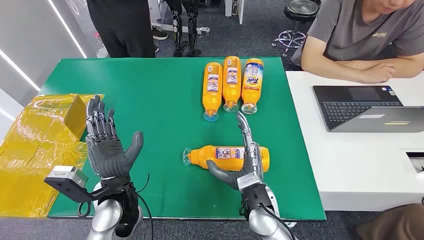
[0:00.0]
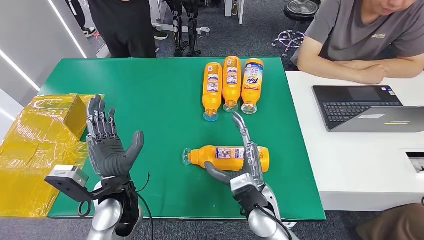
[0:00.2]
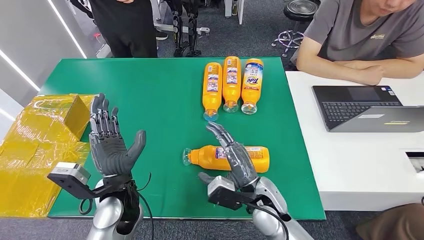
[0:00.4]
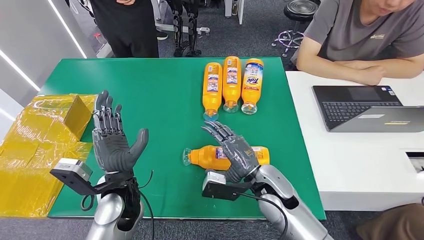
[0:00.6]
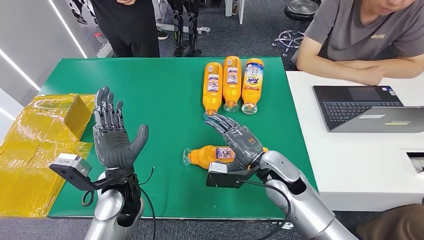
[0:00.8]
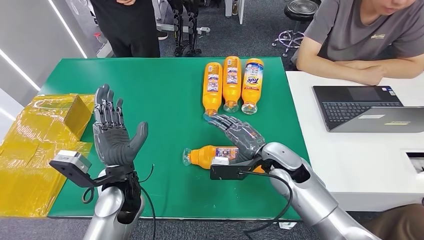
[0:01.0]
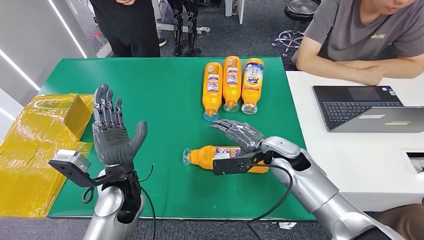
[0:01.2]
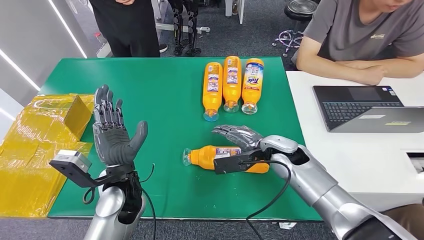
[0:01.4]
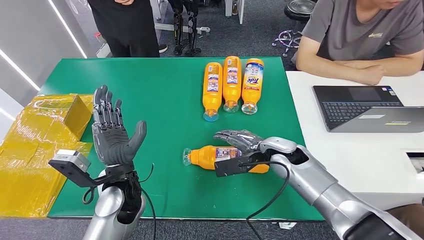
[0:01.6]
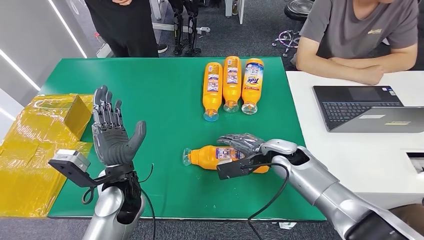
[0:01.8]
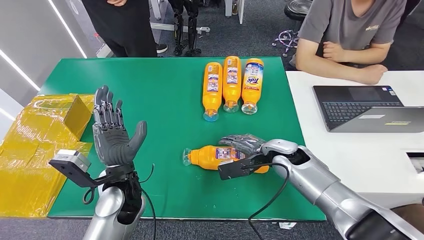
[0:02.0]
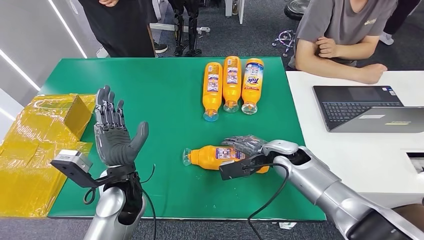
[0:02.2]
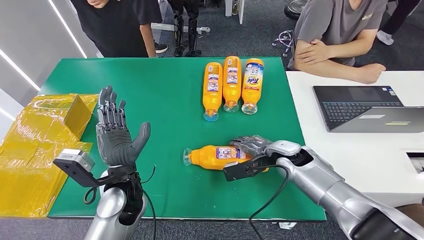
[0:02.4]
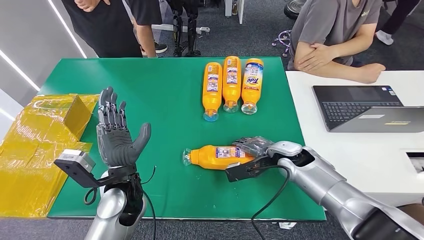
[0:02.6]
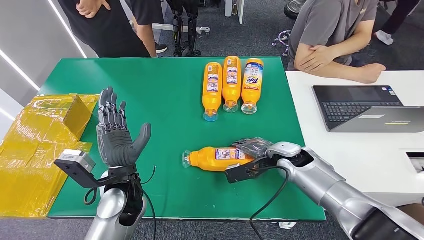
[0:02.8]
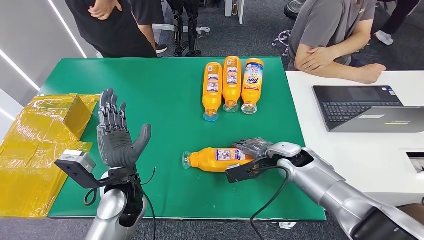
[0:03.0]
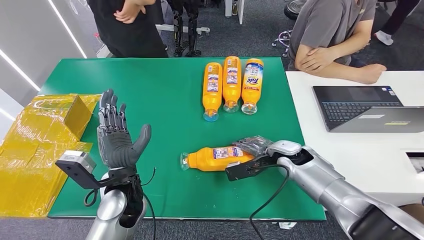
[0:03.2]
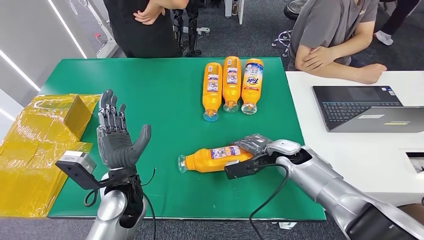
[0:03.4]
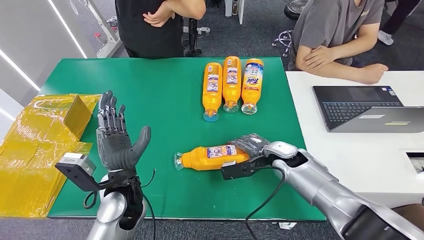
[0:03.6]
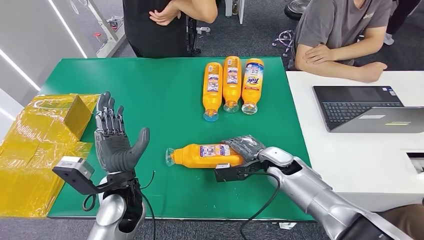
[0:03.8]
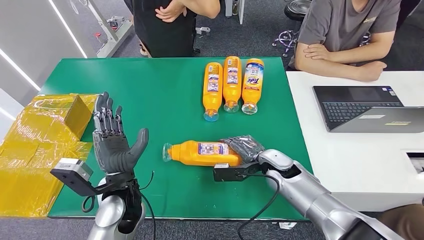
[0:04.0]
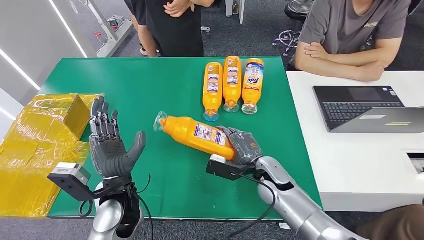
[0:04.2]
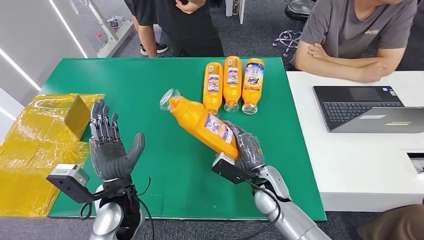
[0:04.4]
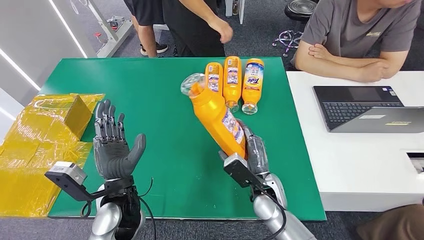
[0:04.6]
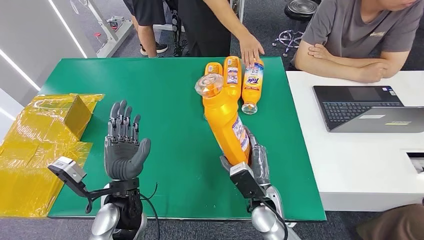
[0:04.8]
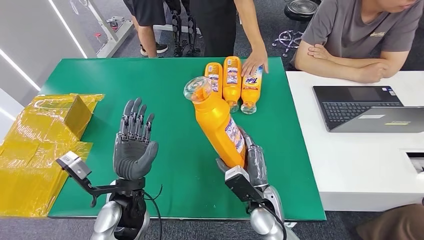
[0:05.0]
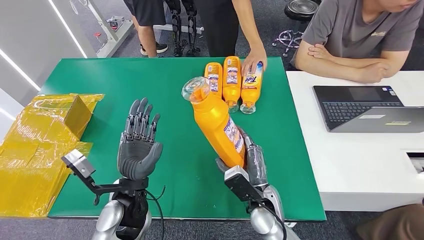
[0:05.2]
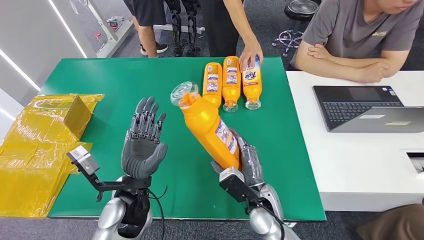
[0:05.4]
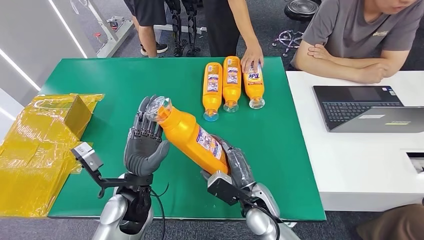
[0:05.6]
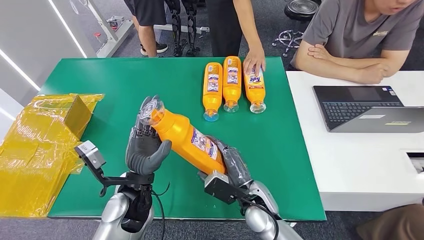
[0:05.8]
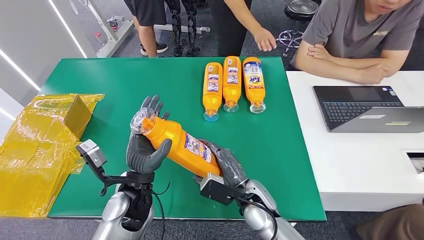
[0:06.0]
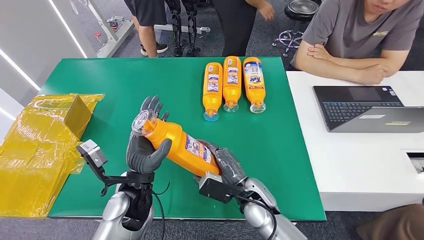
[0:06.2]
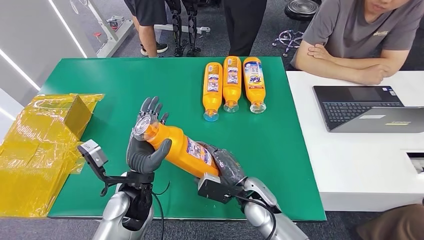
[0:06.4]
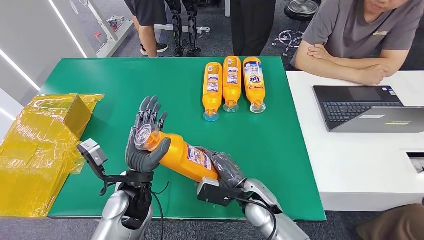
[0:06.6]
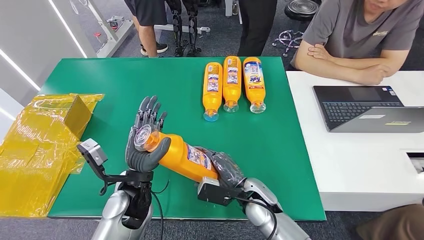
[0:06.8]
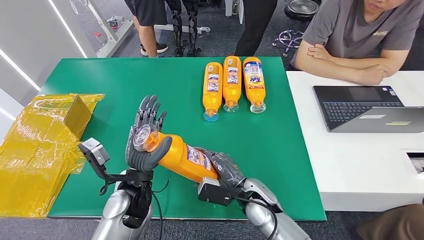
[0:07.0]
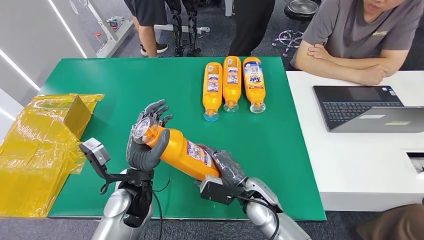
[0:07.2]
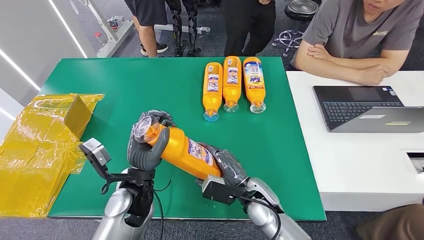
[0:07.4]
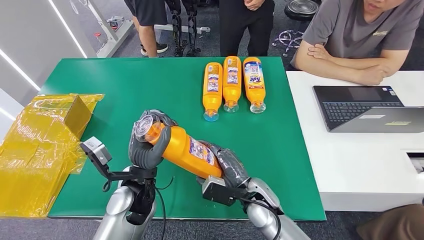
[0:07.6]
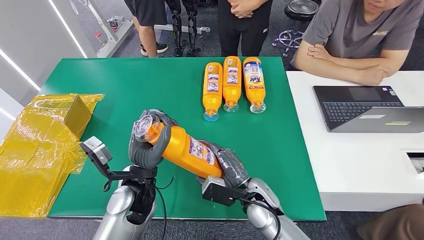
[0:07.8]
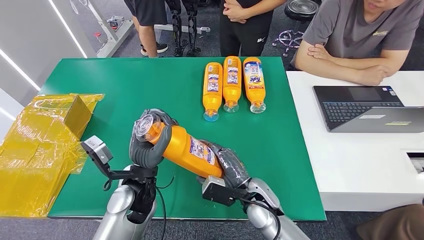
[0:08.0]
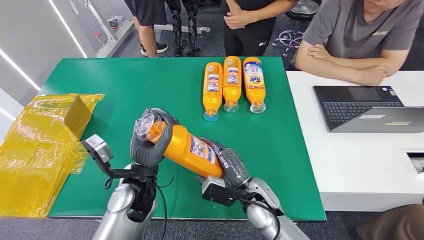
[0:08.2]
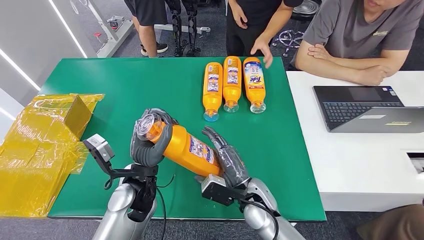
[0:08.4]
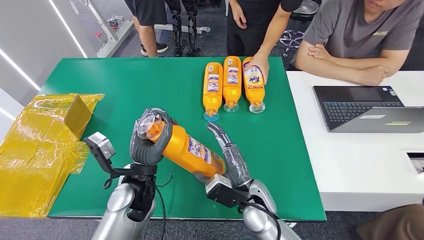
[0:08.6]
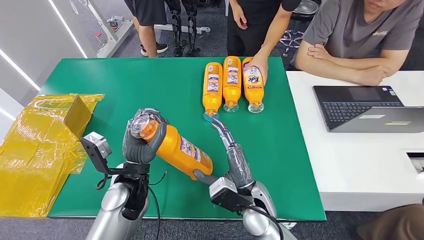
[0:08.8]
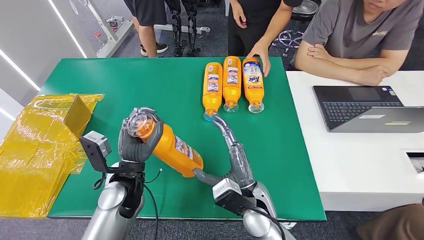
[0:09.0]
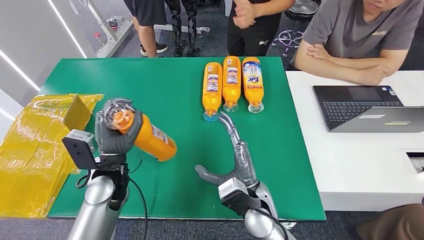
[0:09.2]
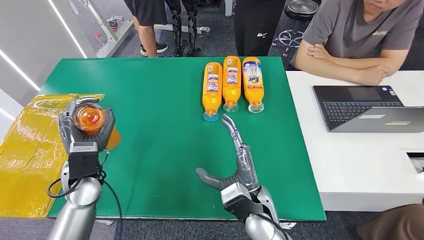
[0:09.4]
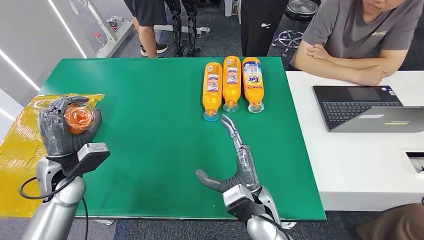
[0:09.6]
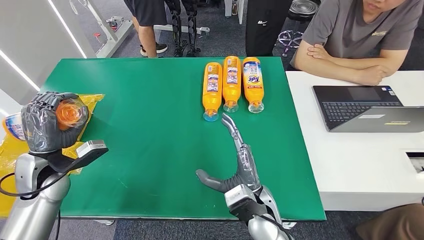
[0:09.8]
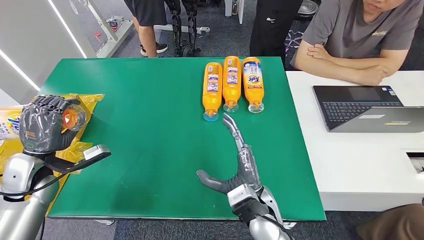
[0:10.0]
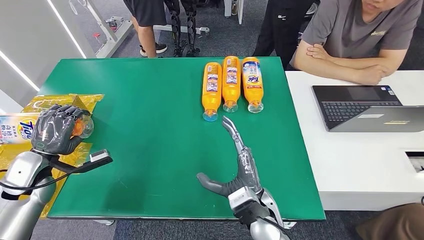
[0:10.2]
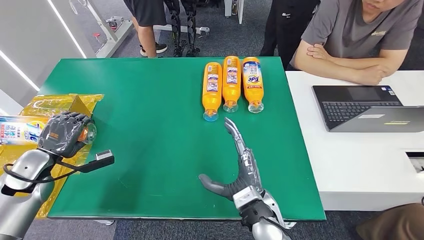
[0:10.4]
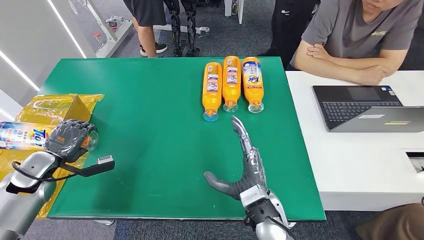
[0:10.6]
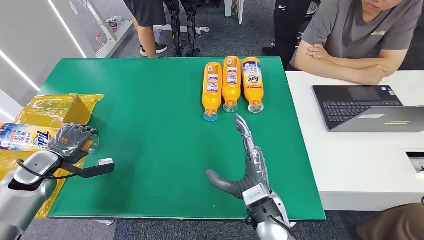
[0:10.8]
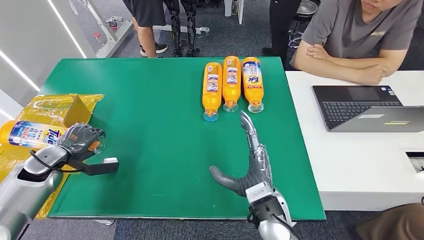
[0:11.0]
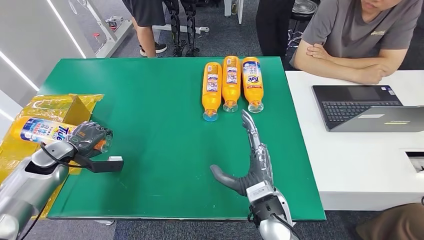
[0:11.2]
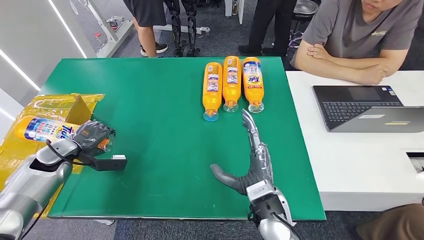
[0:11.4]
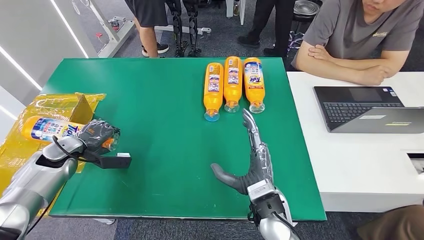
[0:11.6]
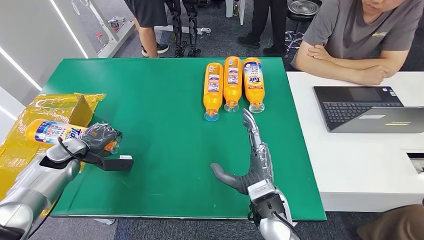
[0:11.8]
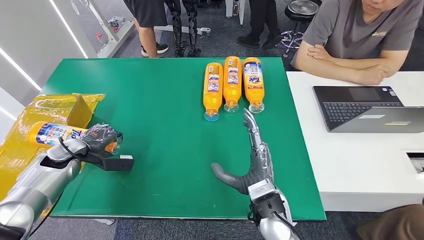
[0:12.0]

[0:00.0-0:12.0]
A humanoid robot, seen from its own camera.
Step, 0:00.0 to 0:06.4: Pick up the bottle from the table.
0:01.6 to 0:03.0: The hands make only small movements.
0:06.0 to 0:07.6: The hands move only a little.
0:10.4 to 0:12.0: The left hand is displaced forward by roughly 5 cm.

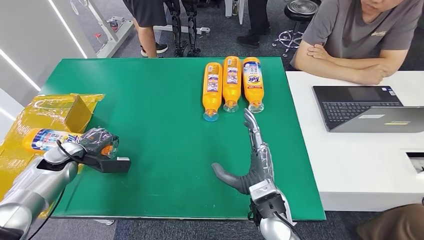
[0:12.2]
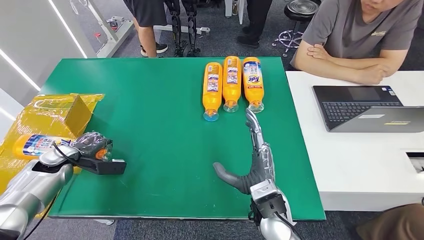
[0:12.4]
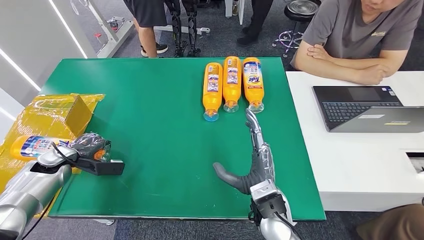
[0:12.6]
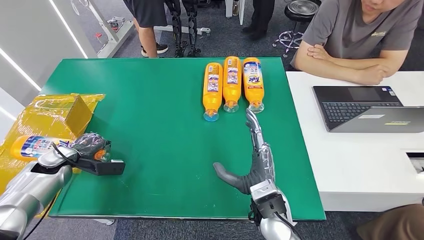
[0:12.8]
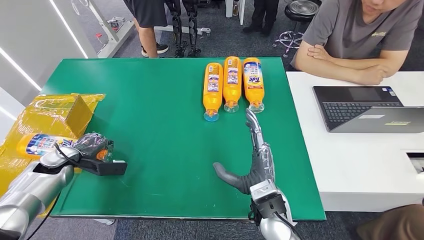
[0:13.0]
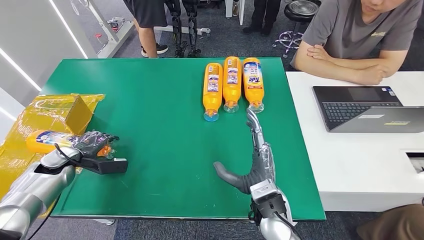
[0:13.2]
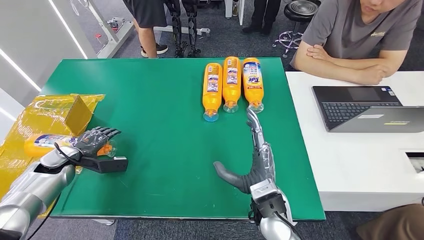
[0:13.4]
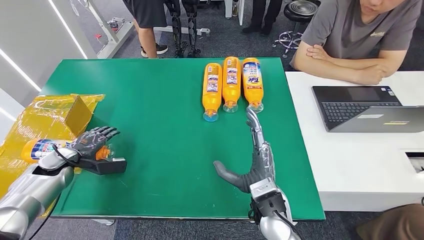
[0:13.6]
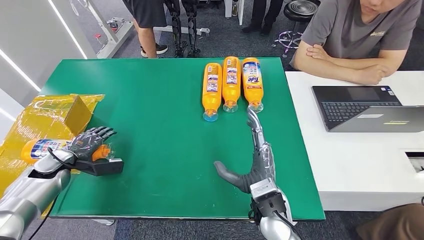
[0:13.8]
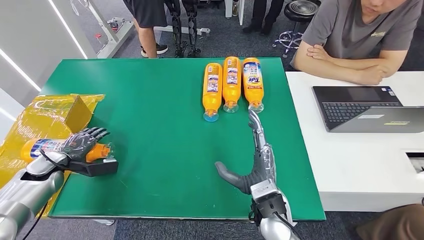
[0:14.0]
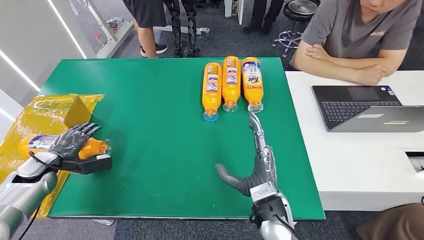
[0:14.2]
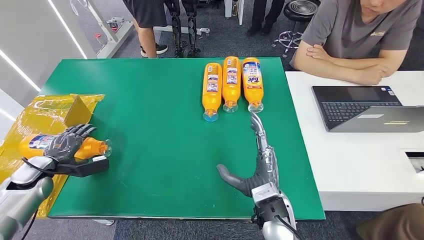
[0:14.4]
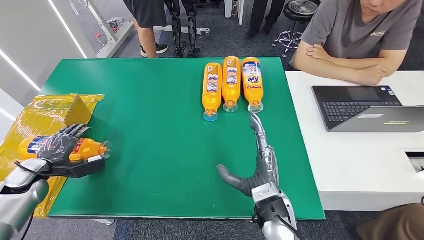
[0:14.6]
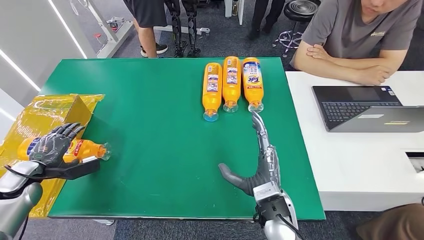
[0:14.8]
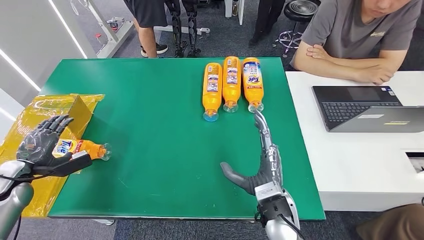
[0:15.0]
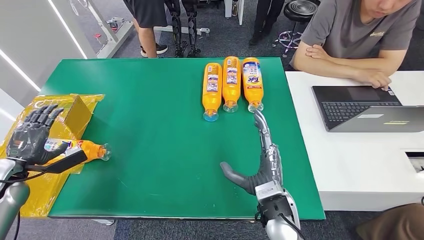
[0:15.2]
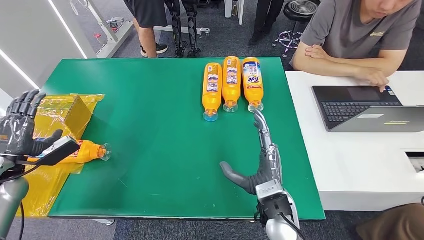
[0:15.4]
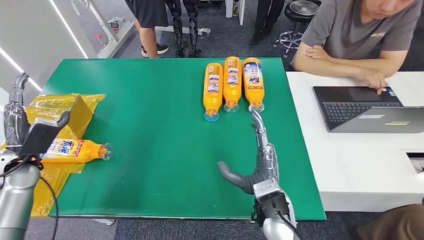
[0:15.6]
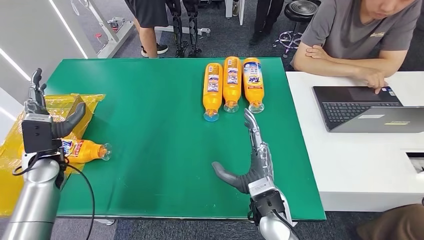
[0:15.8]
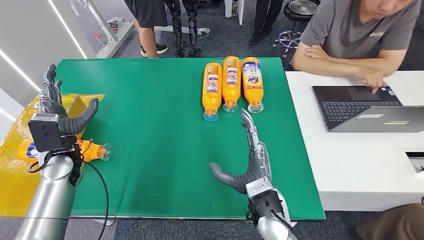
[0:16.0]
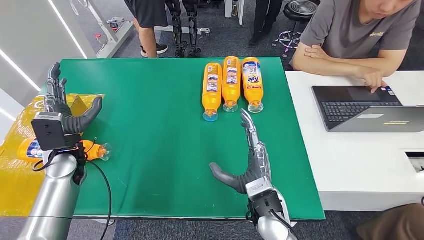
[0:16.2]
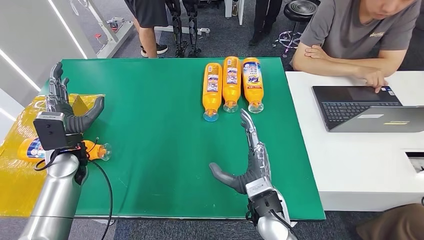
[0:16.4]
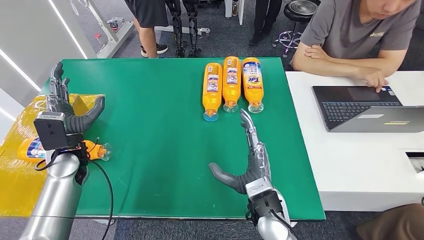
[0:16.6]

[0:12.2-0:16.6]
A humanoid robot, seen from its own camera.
Step, 0:12.2 to 0:16.6: Turn the bottle to the front side.
0:12.2 to 0:13.6: The hands make only small movements.
0:13.6 to 0:15.2: The left hand goes about 10 cm backward and to the left.
0:15.2 to 0:16.6: The left hand travels to the right by about 15 cm.
